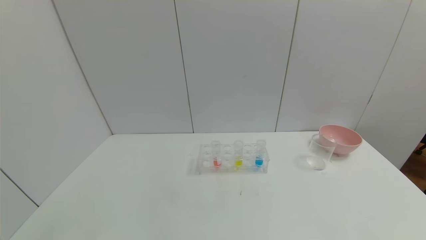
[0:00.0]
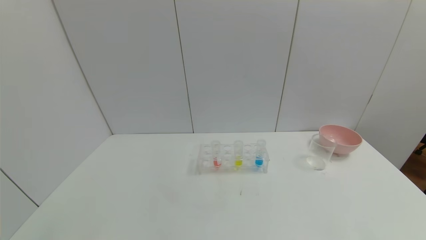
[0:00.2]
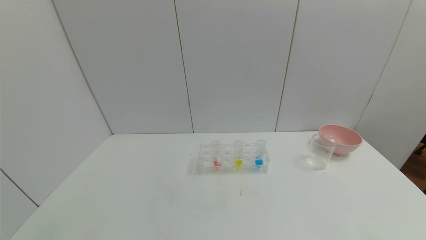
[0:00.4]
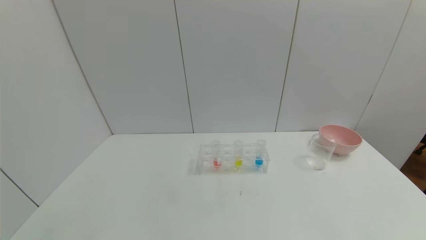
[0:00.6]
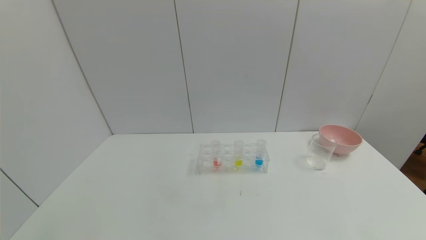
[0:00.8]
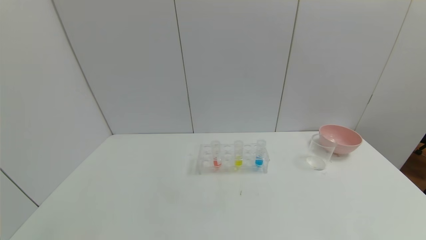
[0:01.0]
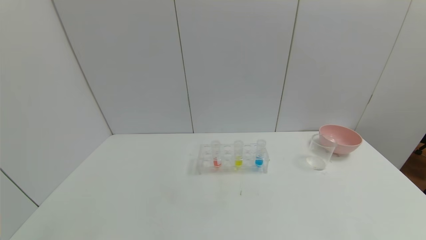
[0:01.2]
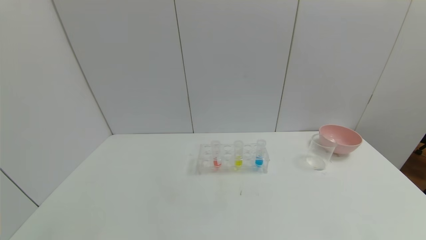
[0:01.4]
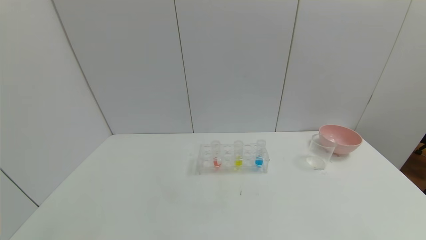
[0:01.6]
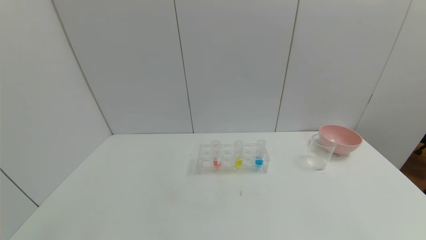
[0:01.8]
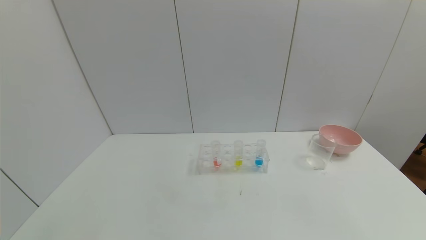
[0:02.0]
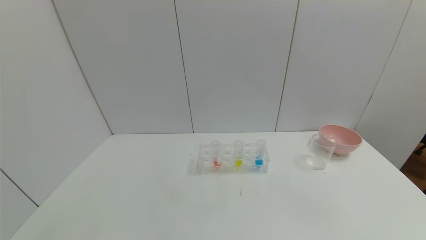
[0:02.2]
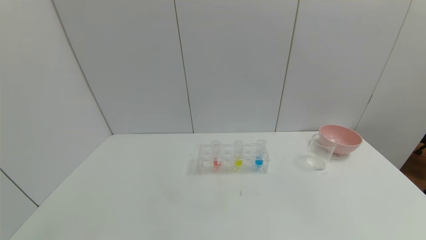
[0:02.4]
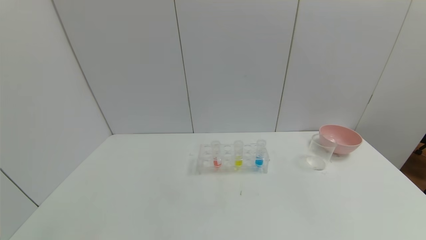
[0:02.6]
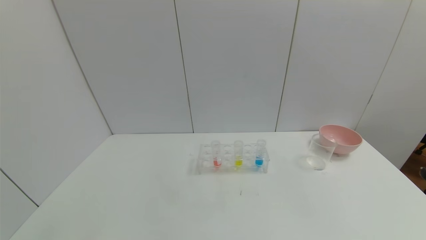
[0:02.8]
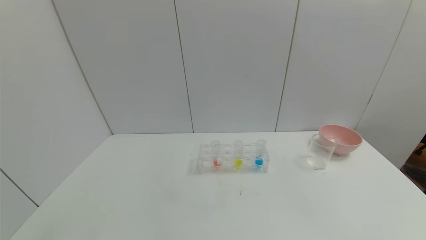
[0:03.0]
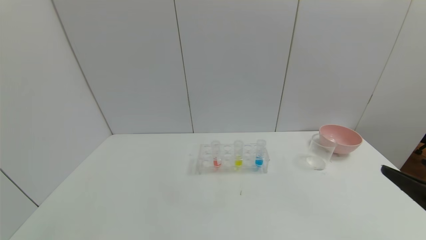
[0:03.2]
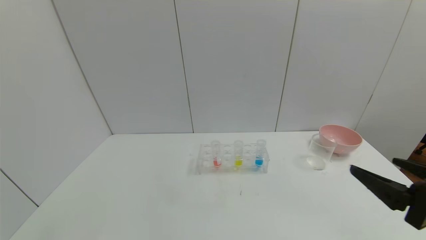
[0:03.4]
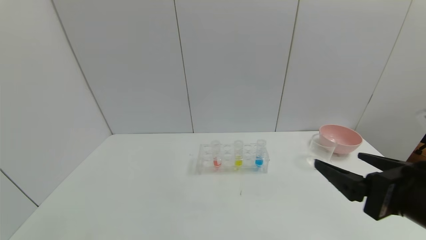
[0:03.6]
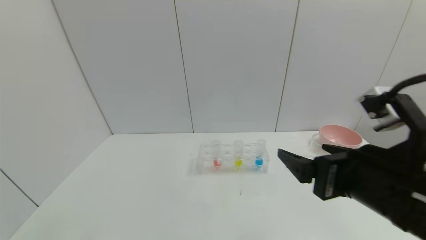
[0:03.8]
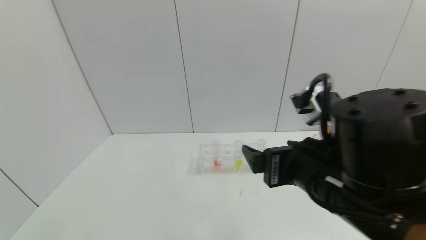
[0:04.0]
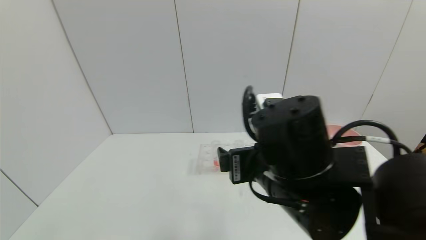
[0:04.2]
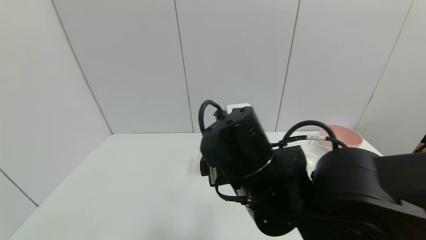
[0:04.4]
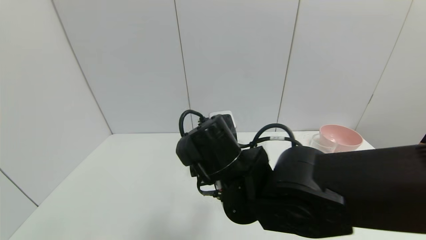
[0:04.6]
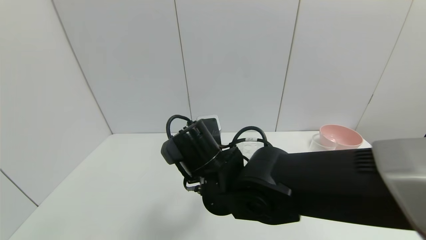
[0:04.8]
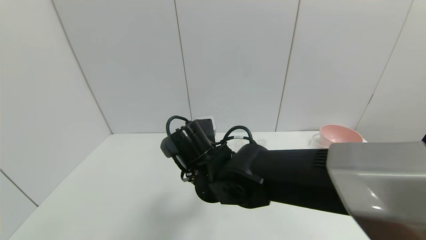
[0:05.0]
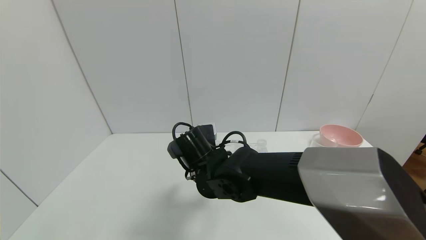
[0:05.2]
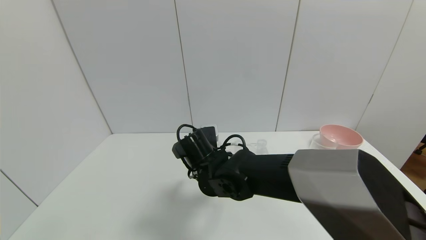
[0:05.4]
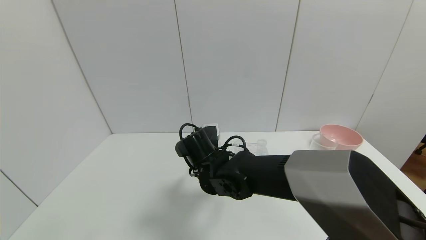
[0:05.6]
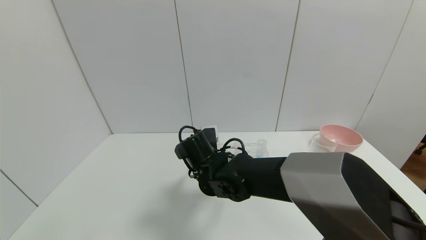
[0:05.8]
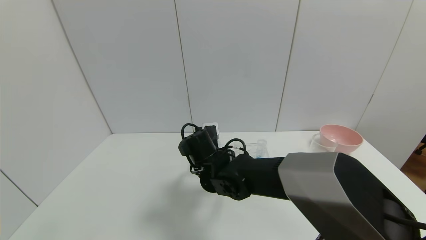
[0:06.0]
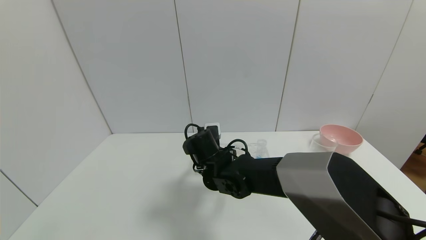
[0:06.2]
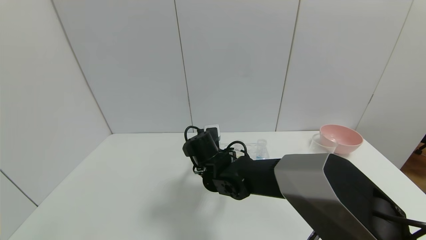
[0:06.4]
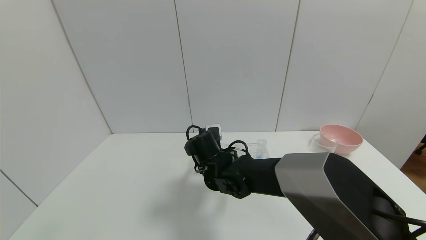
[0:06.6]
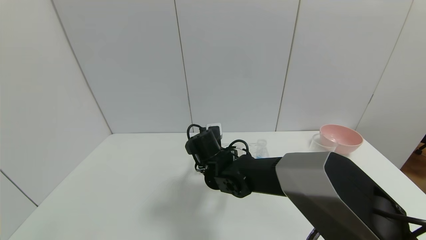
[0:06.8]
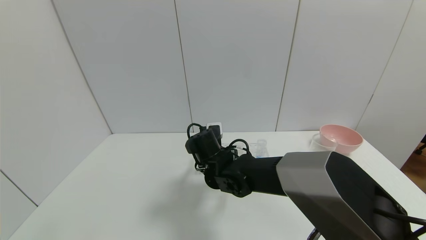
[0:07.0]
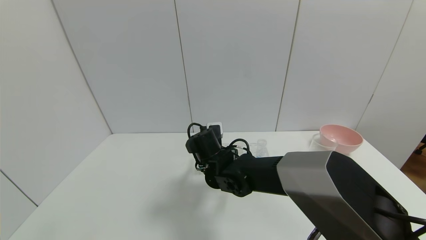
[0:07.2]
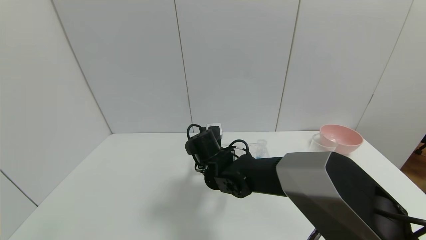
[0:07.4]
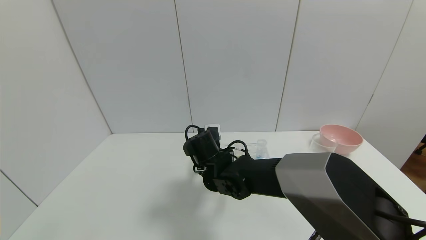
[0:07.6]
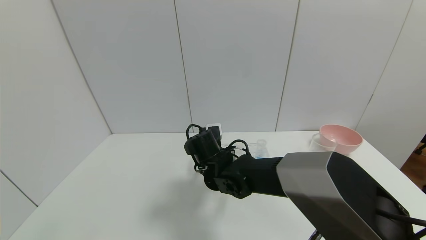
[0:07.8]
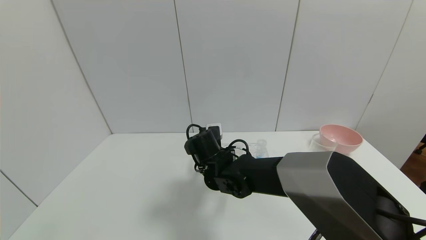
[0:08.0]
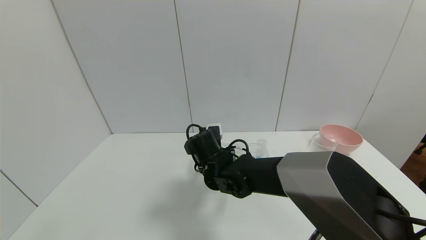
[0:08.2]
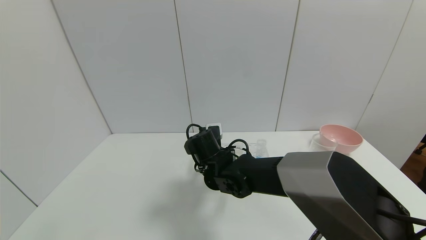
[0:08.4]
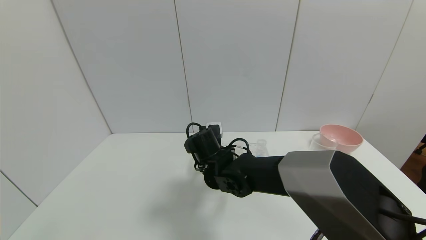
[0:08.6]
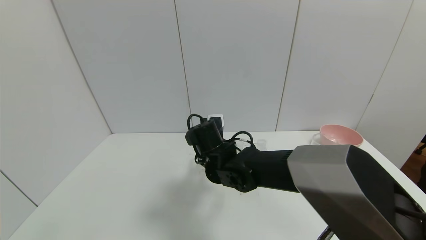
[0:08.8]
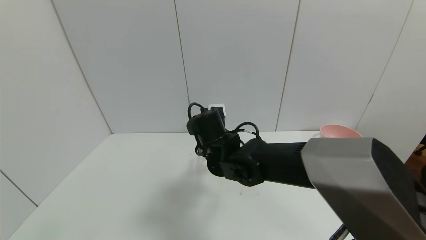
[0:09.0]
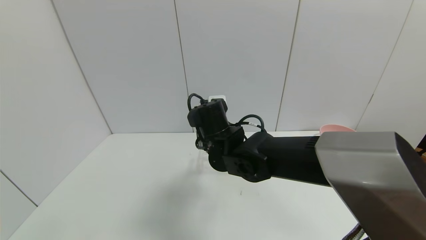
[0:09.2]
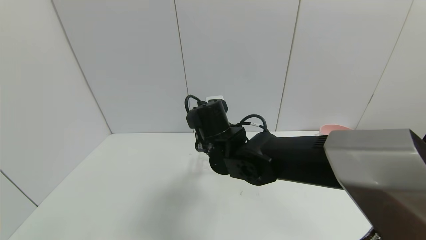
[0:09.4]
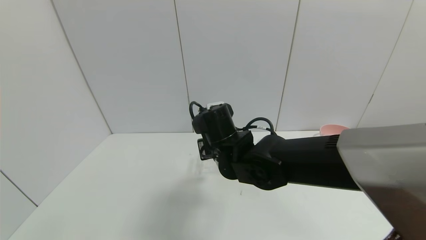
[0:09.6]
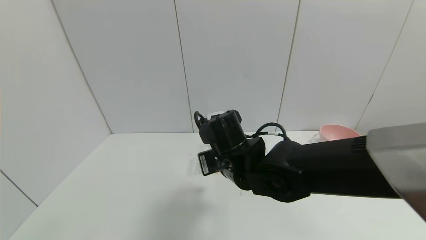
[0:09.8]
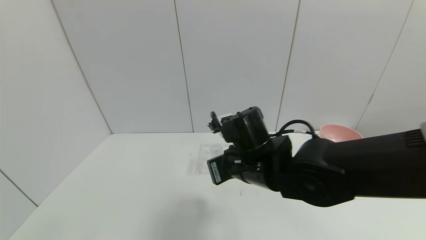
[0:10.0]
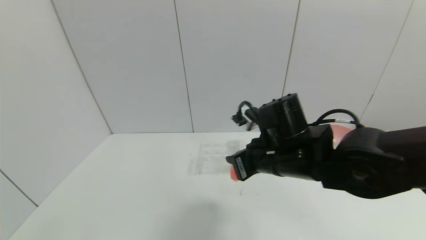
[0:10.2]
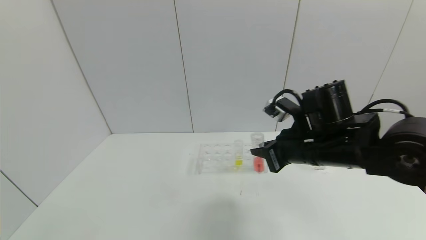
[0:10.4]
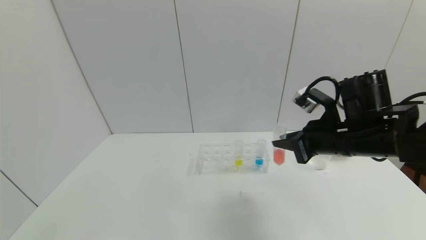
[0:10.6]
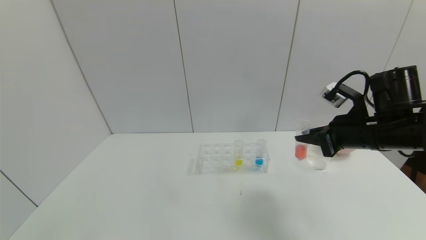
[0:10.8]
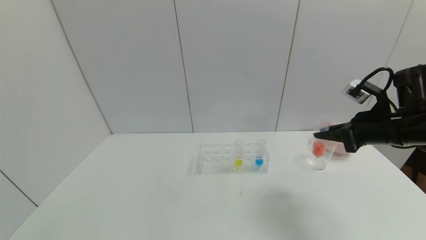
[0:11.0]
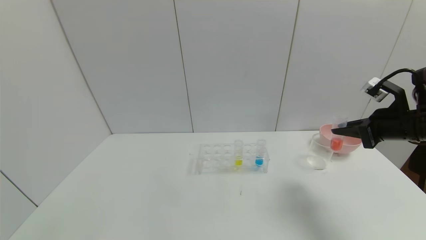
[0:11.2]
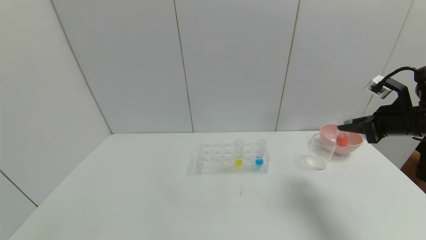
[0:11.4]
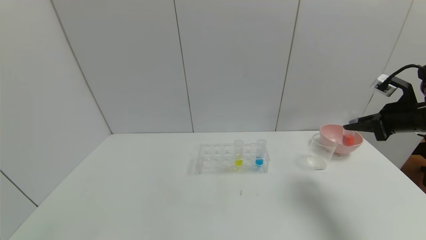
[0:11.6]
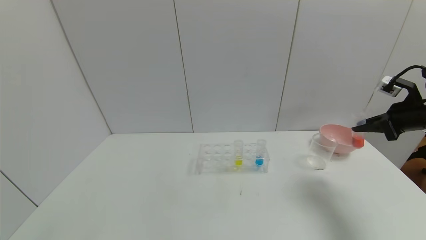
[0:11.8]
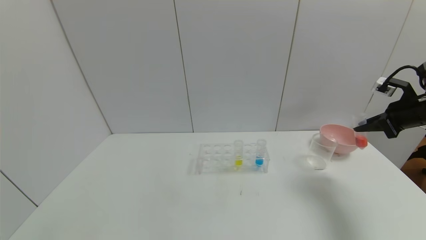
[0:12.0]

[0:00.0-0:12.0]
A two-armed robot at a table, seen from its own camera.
Task of the whole recording: pick up the test tube with yellow pigment and the test tube with red pigment by grippers and pour them into the beaker.
Step, 0:00.0 to 0:07.8: Grasp the red reagent with the right gripper.
0:03.0 to 0:04.4: The right gripper heads to the left and forward, covering roughly 30 cm.
0:04.4 to 0:06.0: The right gripper goes approximately 20 cm forward, downward and to the left.
0:06.0 to 0:07.6: The right gripper closes its fingers.
0:07.6 to 0:09.0: The right gripper travels upward by roughly 5 cm.
0:09.0 to 0:10.4: The right gripper shifts roughly 20 cm to the right.
0:10.4 to 0:12.0: The right gripper travels to the right by approximately 25 cm.

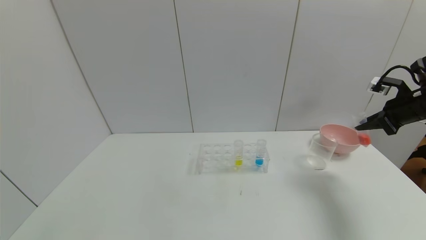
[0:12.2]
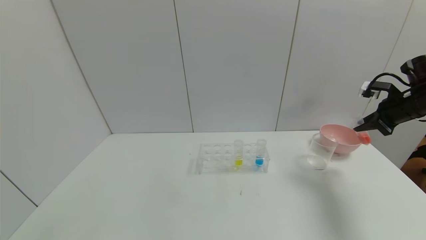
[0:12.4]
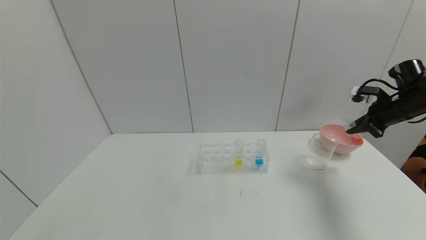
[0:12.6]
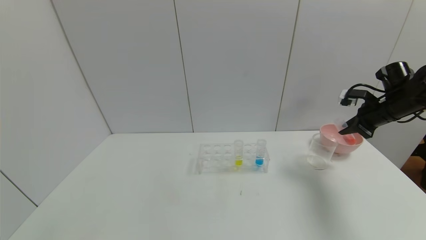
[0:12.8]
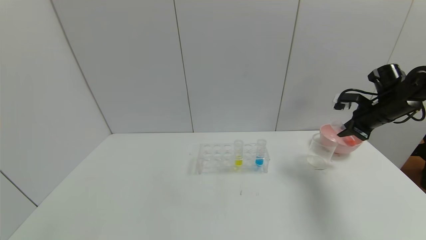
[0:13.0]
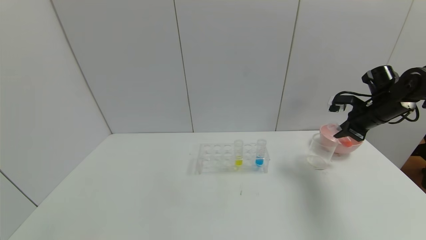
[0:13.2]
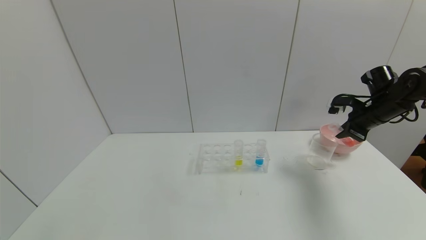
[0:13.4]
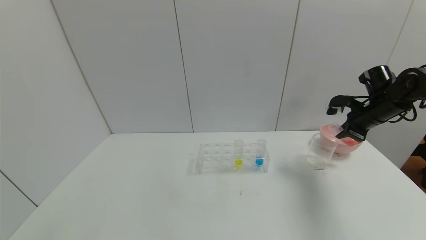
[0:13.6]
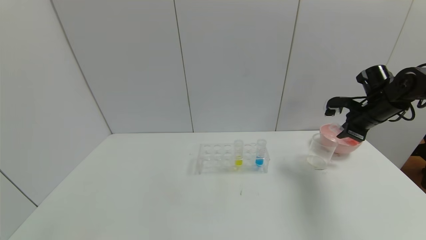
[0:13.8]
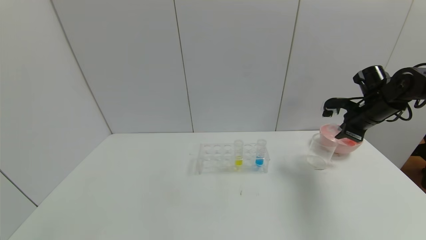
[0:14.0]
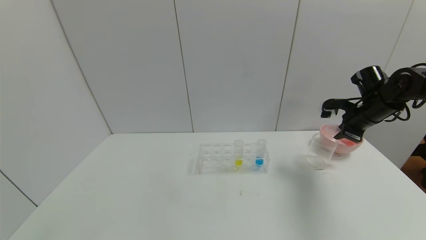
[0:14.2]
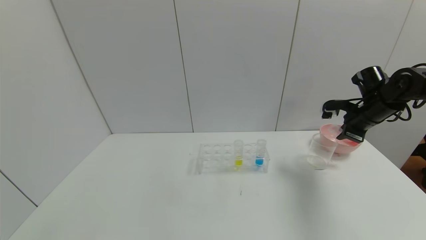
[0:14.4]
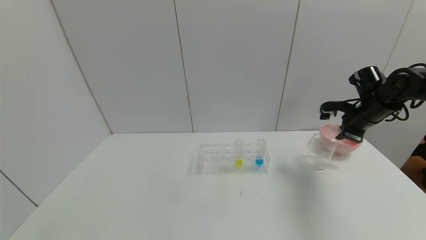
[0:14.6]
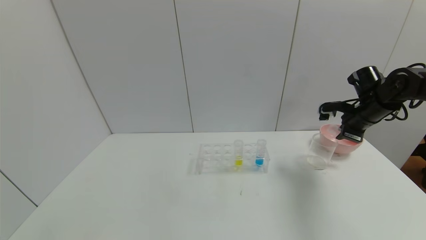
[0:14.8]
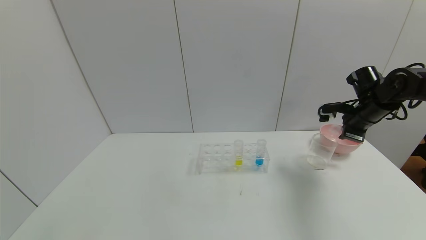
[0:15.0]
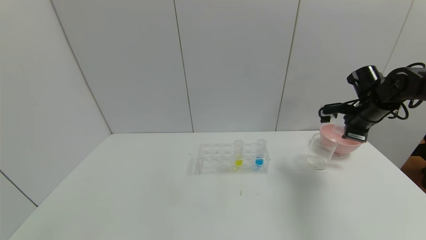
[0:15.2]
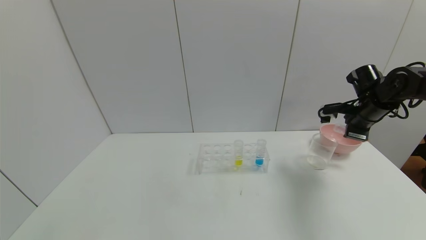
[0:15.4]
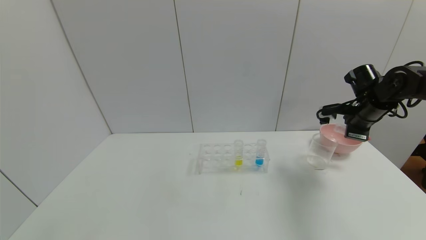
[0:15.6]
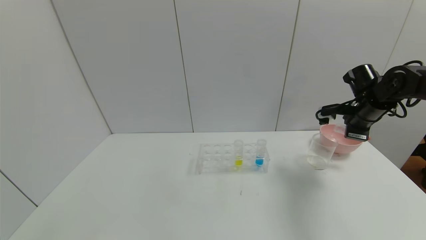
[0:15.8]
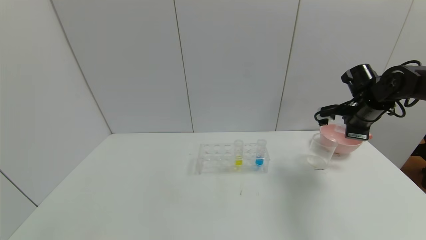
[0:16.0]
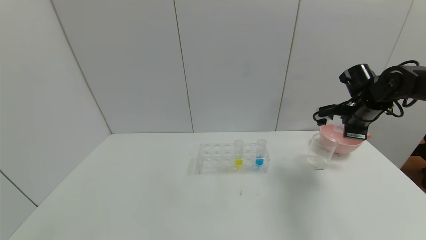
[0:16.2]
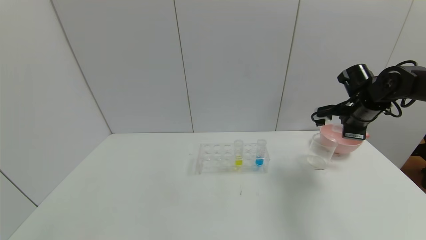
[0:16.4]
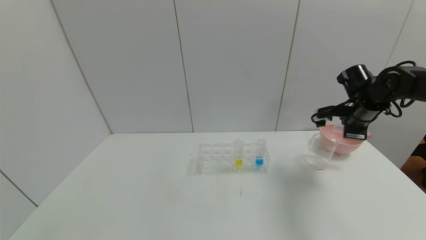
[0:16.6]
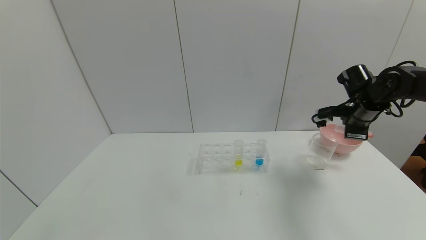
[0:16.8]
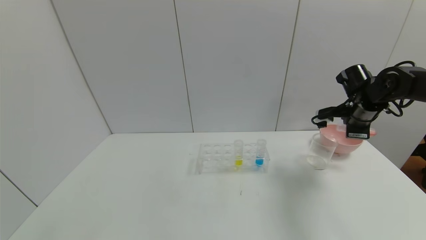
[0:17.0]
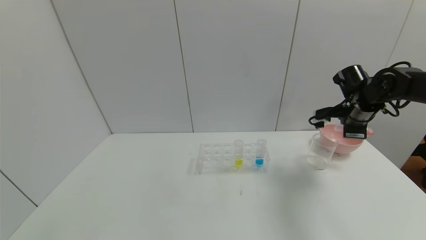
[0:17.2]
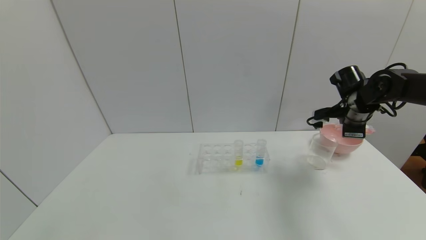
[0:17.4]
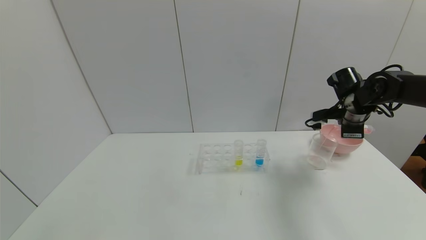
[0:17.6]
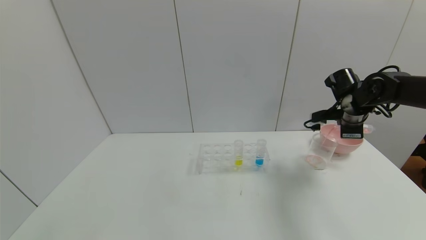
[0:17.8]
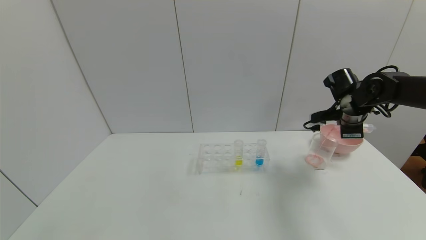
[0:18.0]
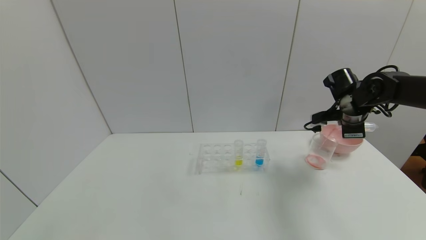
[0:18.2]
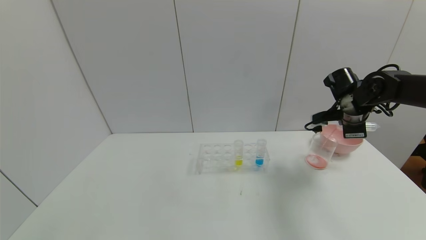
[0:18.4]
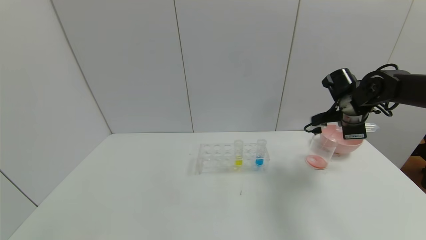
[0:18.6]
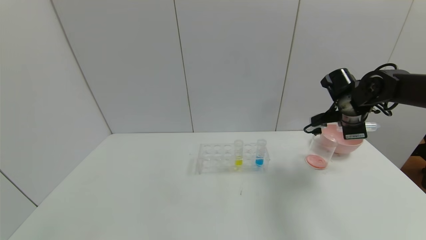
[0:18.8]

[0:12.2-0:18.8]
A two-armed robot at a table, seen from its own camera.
Task of the whole recording: pick up the test tube with yellow pigment and the test tube with red pigment by grippers and pour them into the beaker.
Step, 0:12.2 to 0:18.8: Pour the red reagent into the graduated cylinder with the right gripper.
0:12.2 to 0:13.8: The right gripper shifts roughly 10 cm to the left and forward.
0:13.8 to 0:15.4: The grippers move only a little.
0:15.4 to 0:17.2: There are only small adjustments of the grippers.
0:17.2 to 0:18.8: The grippers make only small movements.
